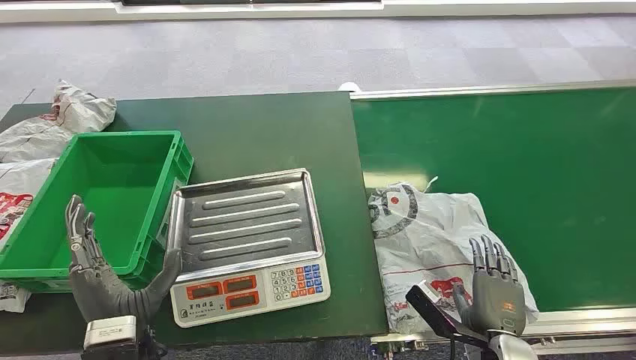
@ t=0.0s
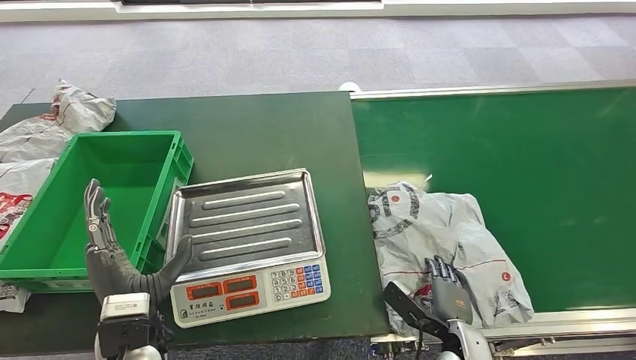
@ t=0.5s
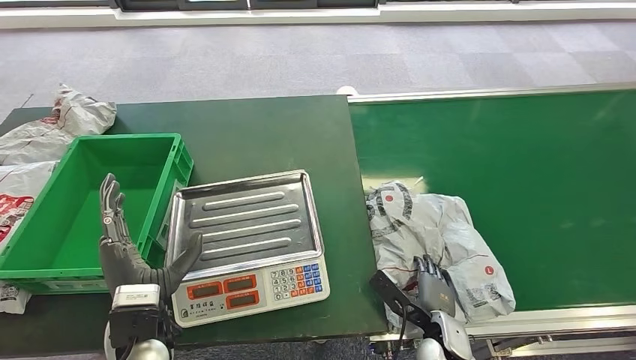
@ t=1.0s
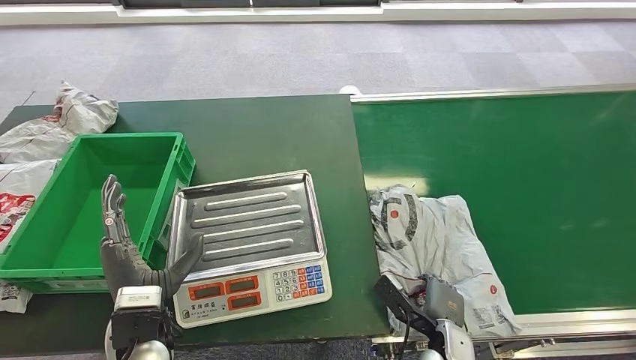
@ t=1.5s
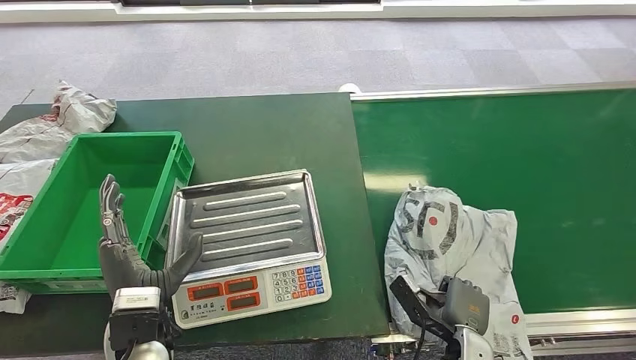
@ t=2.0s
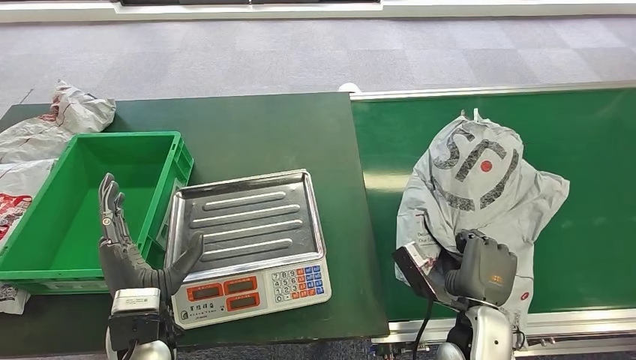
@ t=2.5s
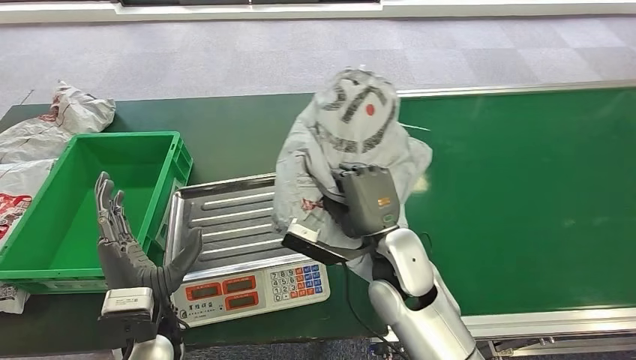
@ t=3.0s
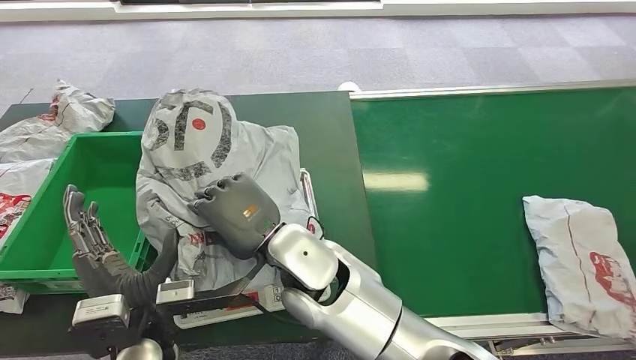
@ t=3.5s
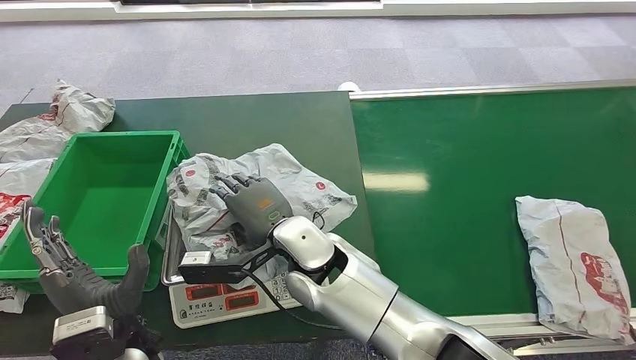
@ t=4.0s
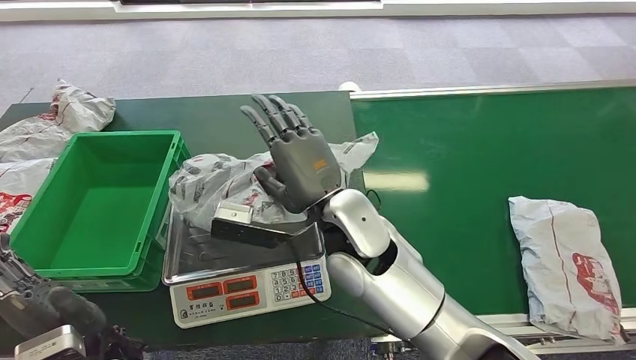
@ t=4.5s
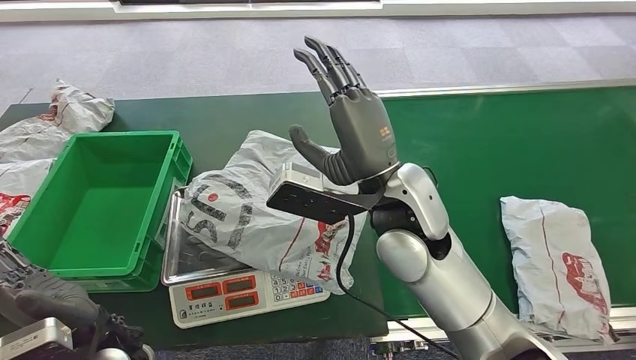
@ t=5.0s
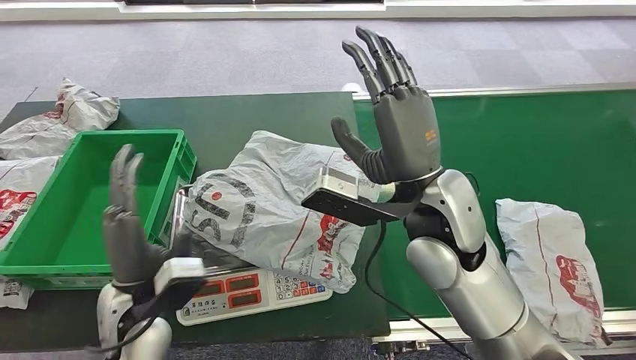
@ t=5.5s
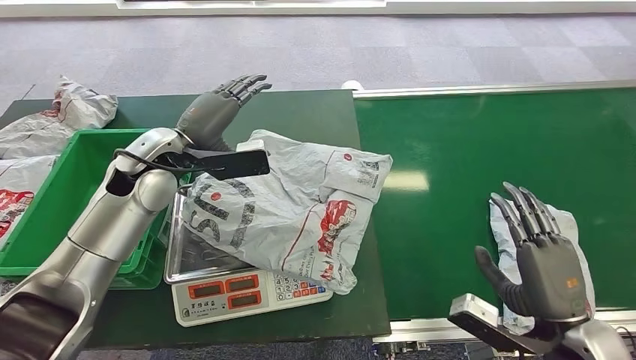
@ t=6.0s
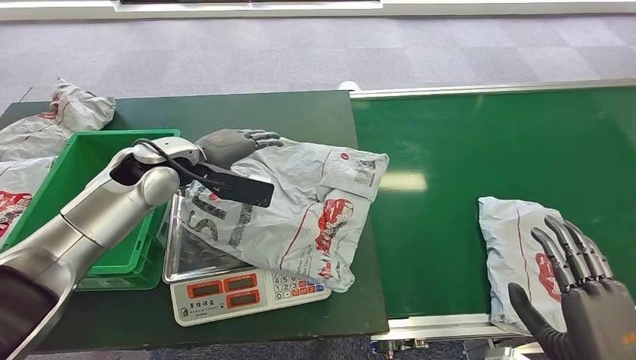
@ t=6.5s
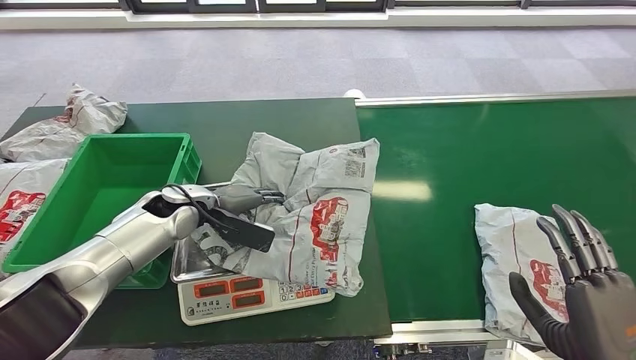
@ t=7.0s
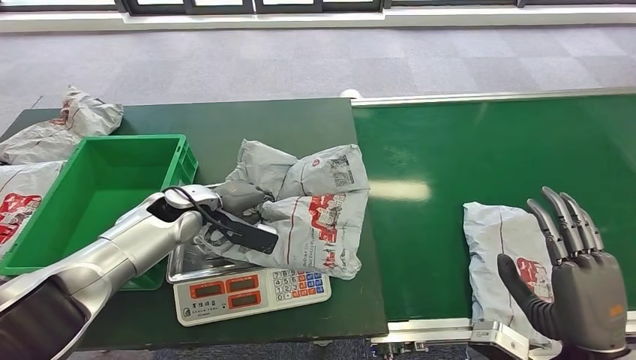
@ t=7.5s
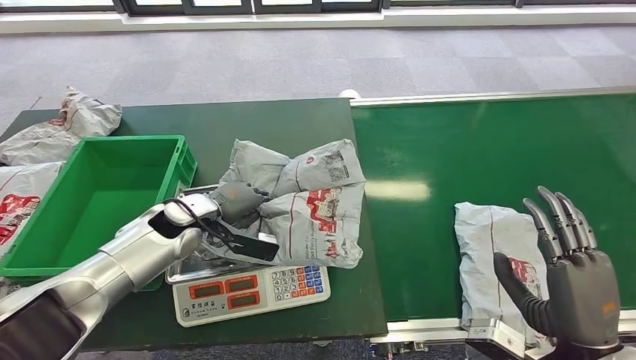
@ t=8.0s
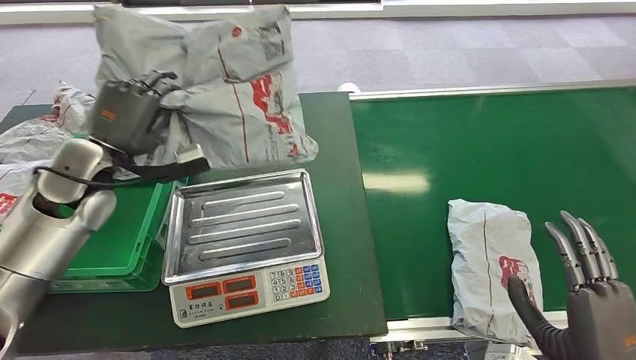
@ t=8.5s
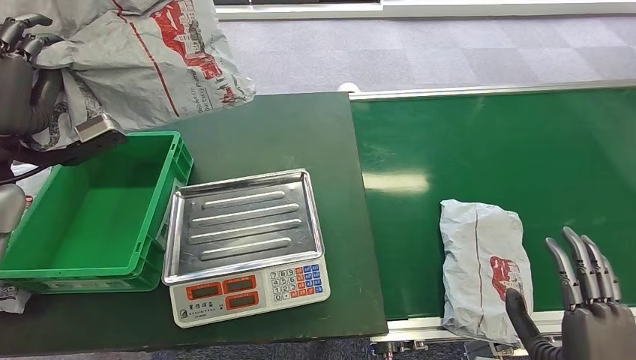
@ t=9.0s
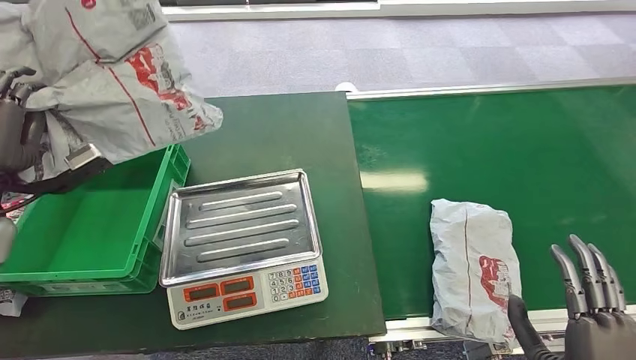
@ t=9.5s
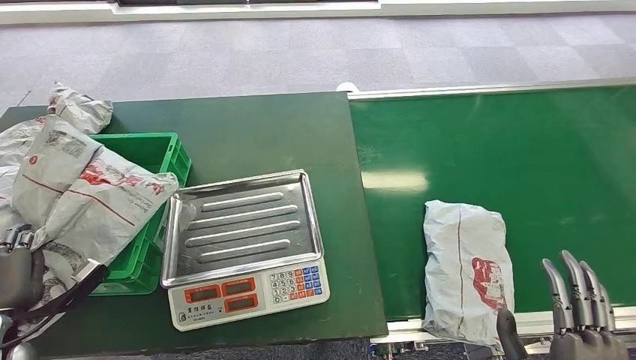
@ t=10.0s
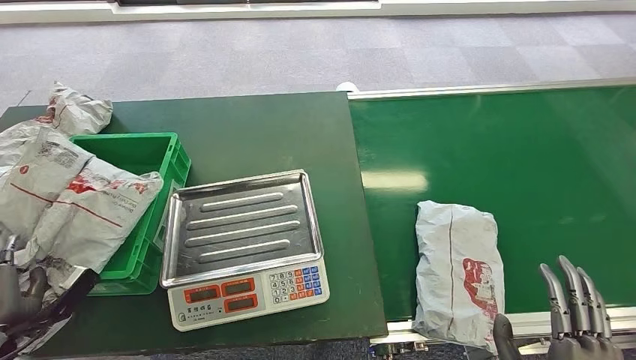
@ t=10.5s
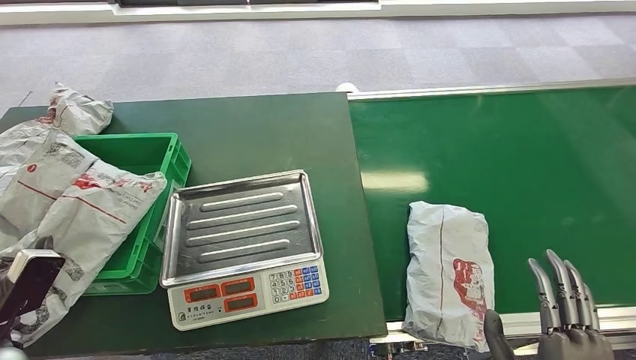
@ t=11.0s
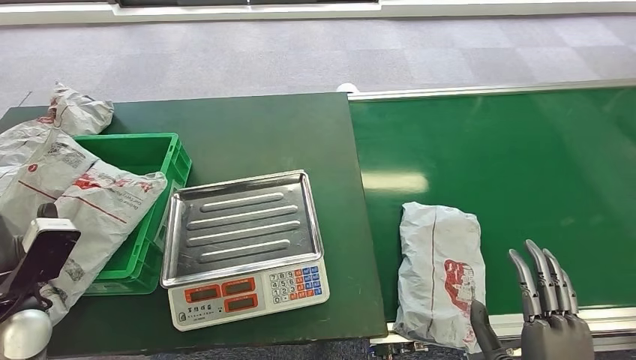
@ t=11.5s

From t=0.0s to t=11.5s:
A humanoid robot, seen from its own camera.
Step, from t=0.0s to t=2.5s: Pick up the package from the conveyor belt.
Step, from t=3.0s to t=5.5s: Place the package onto the inbound machine.
Step, from t=6.0s to t=8.5s: Pick up the package from the inbound machine.
Step, from t=9.0s to t=11.0s: Place the package into the parcel locker.
